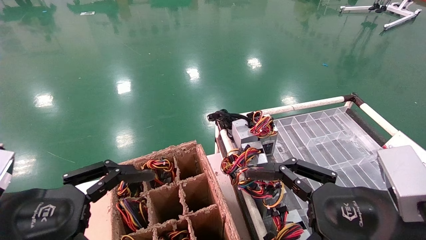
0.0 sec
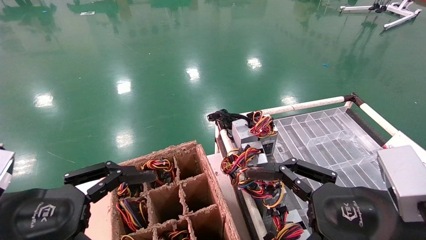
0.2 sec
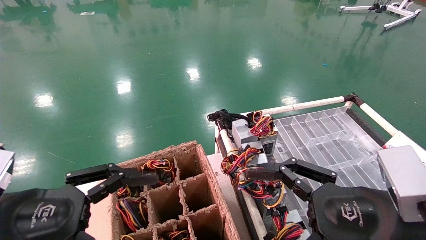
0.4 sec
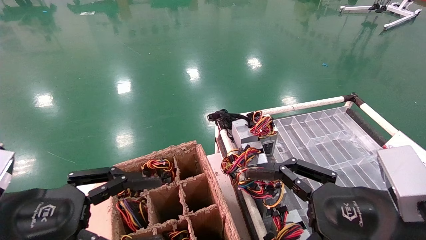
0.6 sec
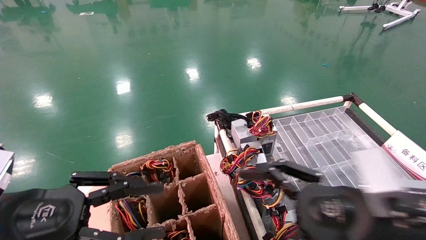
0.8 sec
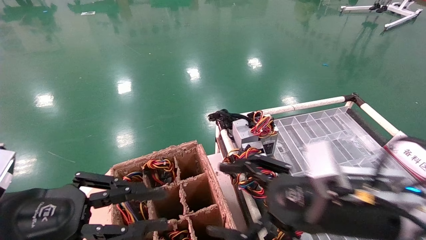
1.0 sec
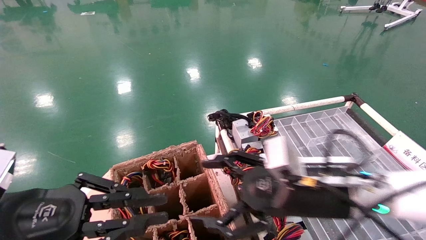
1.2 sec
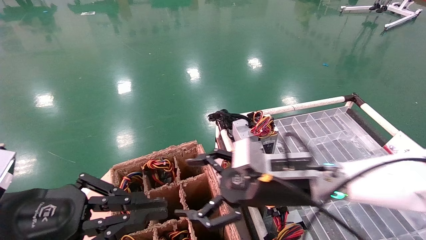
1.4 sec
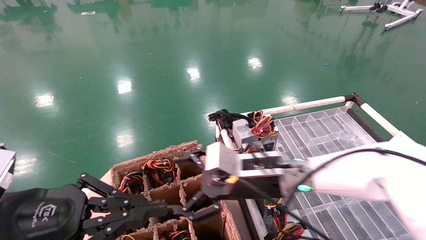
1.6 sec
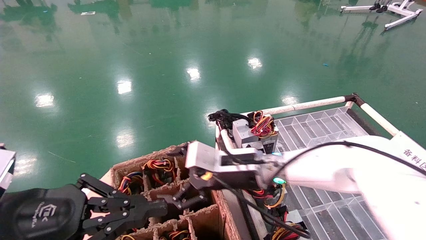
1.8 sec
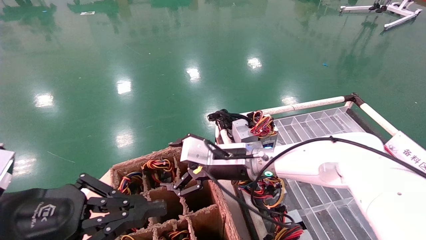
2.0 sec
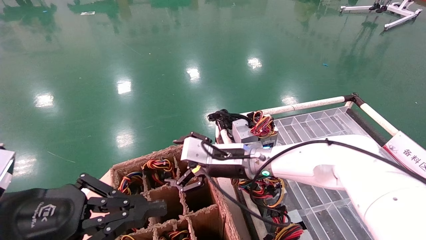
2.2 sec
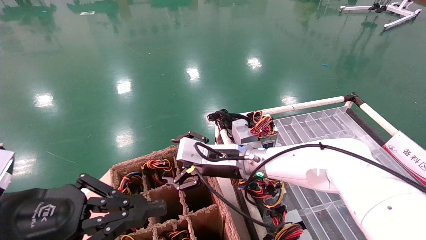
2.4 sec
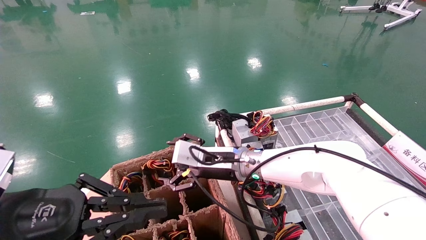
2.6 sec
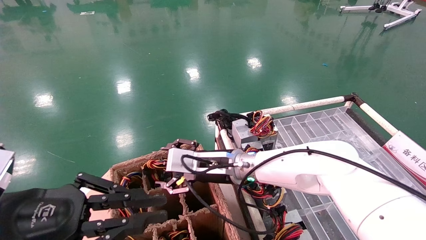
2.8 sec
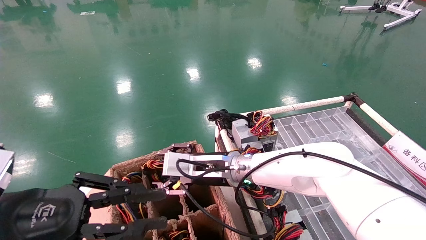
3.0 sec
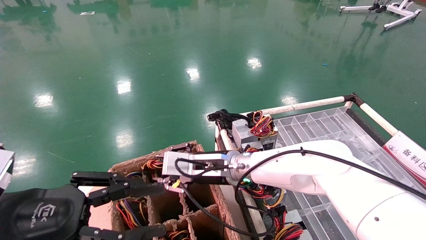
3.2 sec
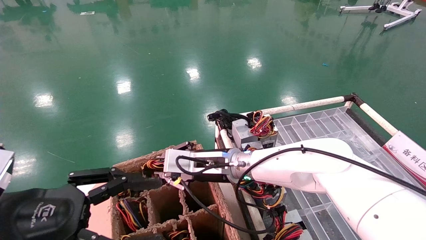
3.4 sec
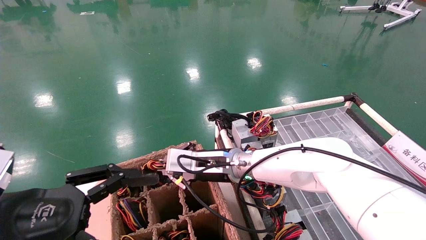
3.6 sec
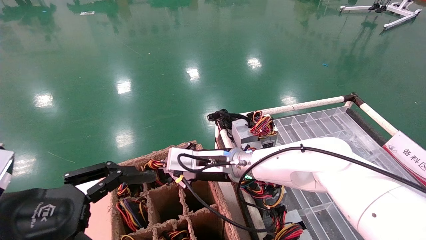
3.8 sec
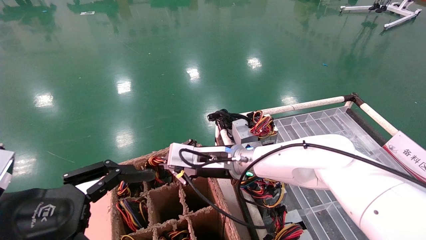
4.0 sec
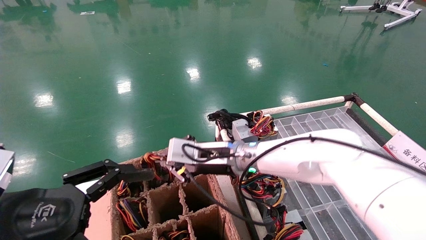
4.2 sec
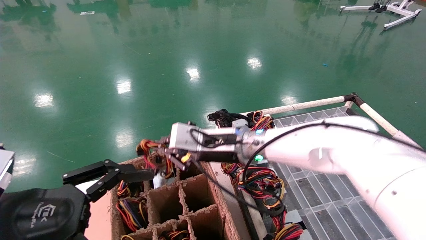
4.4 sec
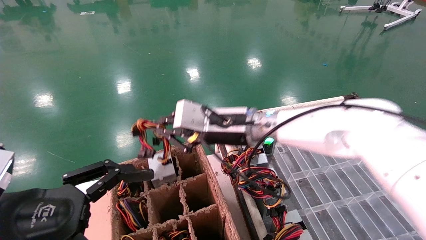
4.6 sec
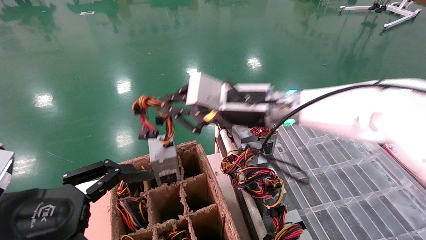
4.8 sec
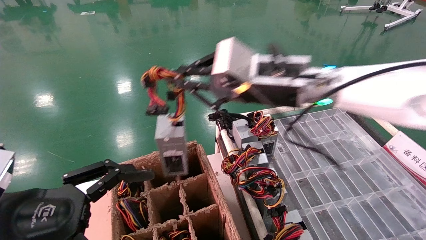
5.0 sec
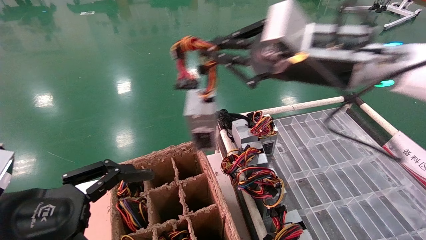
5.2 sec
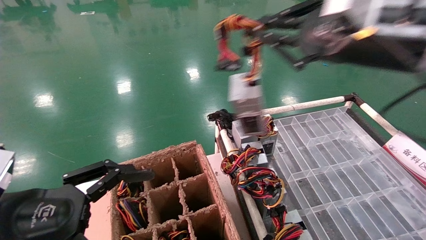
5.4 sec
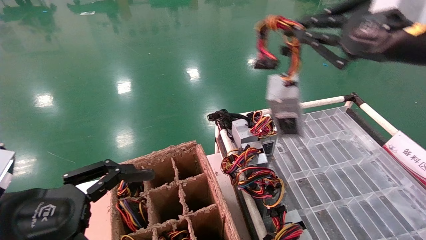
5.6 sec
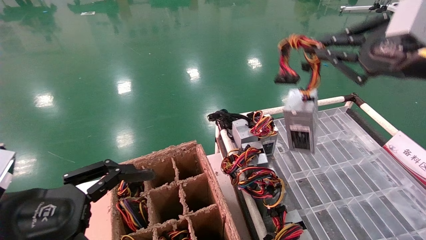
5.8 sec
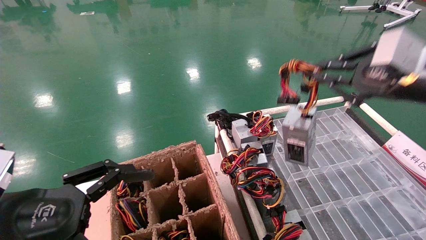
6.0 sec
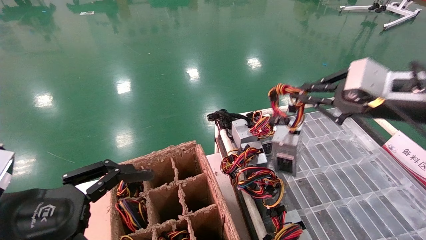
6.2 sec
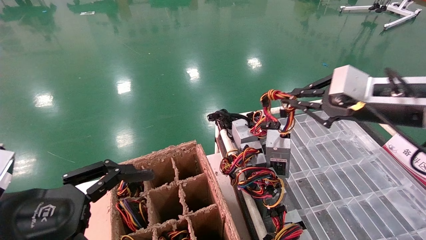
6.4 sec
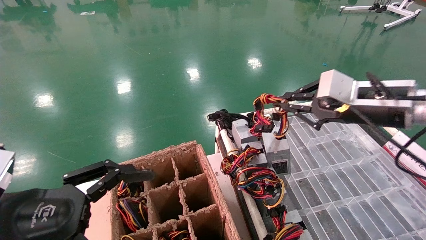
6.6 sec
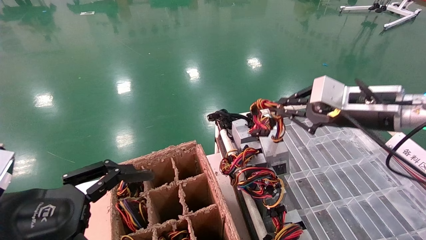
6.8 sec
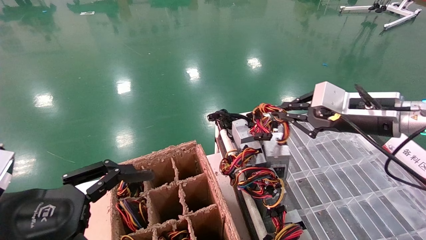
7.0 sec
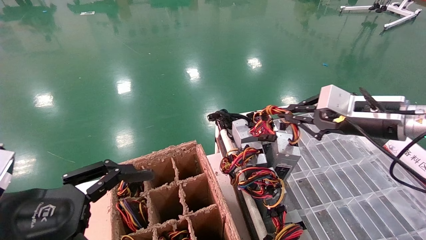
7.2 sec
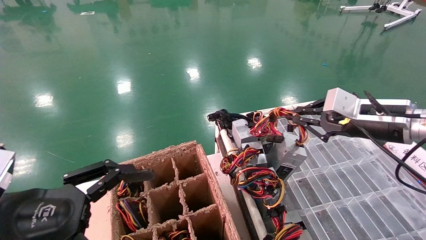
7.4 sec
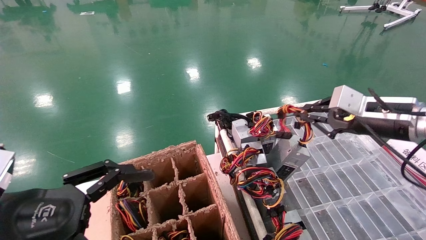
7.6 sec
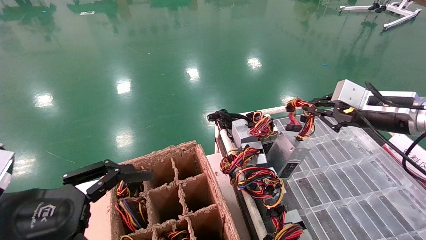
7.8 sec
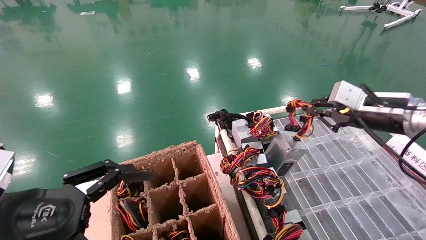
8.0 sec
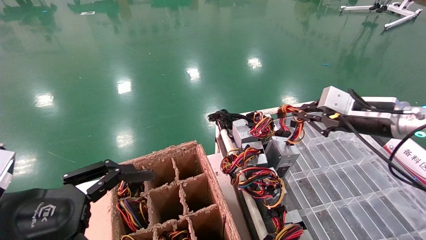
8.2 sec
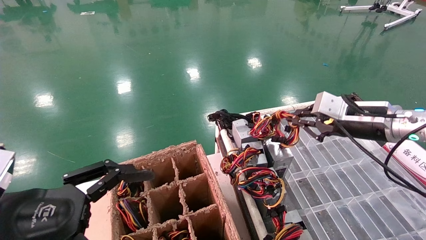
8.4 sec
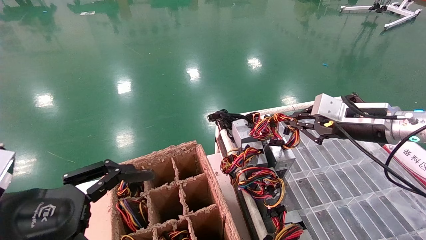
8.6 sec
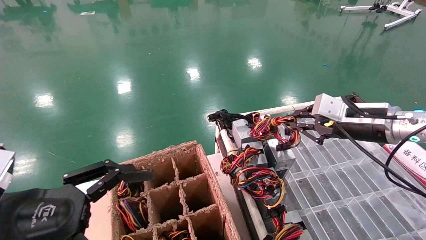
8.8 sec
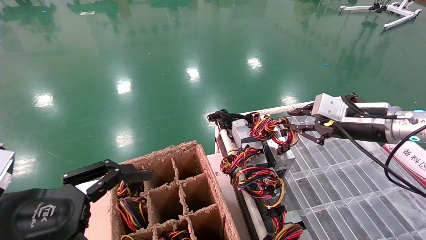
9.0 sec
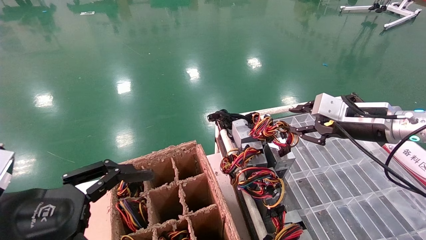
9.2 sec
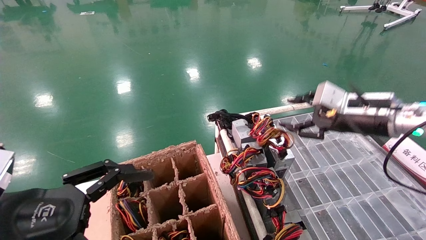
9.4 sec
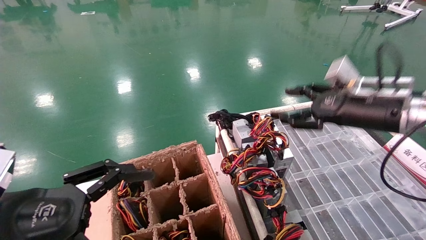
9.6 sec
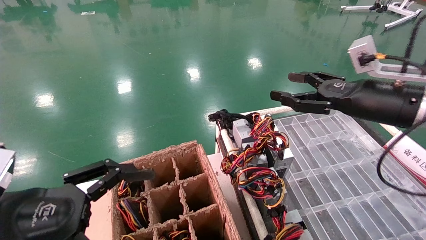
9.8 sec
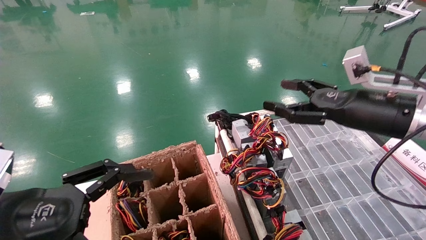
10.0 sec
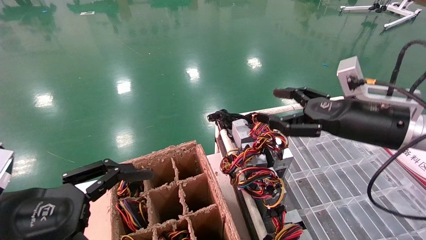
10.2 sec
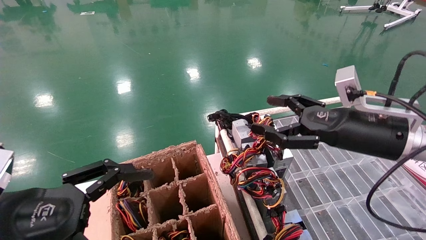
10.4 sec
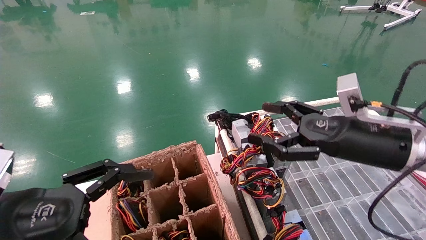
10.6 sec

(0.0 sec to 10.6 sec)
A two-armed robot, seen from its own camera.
Step, 0.8 sec - 3.8 sec: Grab and lift the power supply from the large box.
Step, 4.0 sec - 9.0 sec: Place the power supply on the operating table.
0.0 sec - 1.6 sec: The left gripper closes. The right gripper shifts roughly 25 cm forward and to the left.
1.6 sec - 3.0 sec: The right gripper goes some 10 cm to the left and forward.
3.0 sec - 4.6 sec: The left gripper opens up; the right gripper travels upward by approximately 10 cm, and closes.
4.6 sec - 6.0 sec: The right gripper shifts roughly 30 cm to the right and backward.
6.0 sec - 7.6 sec: The right gripper heads forward and downward, covering approximately 10 cm.
7.6 sec - 9.0 sec: The grippers make only small movements.
9.0 sec - 10.6 sec: The right gripper travels backward and to the left by about 10 cm, and opens its fingers.
